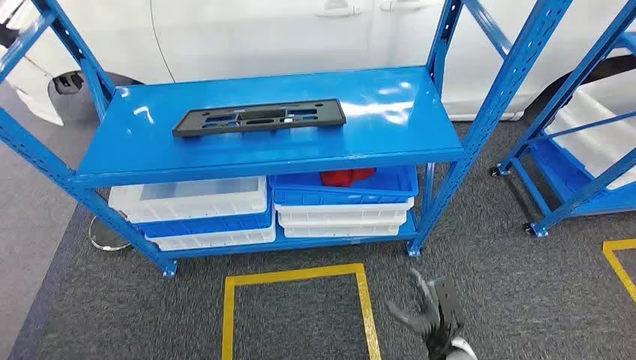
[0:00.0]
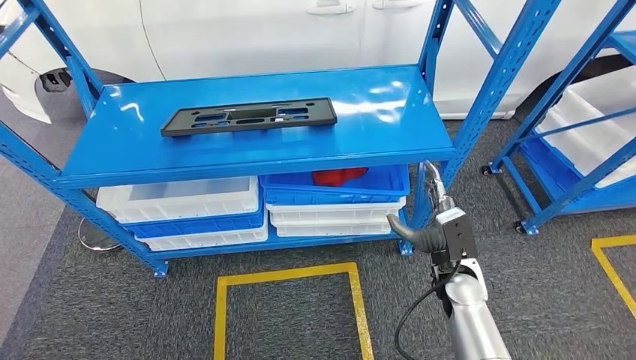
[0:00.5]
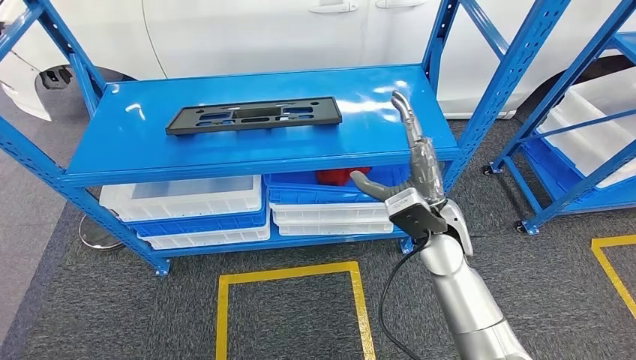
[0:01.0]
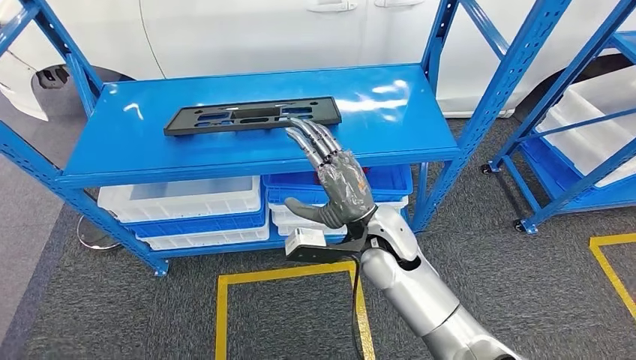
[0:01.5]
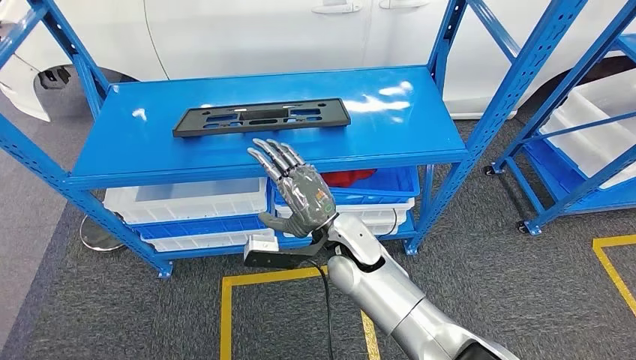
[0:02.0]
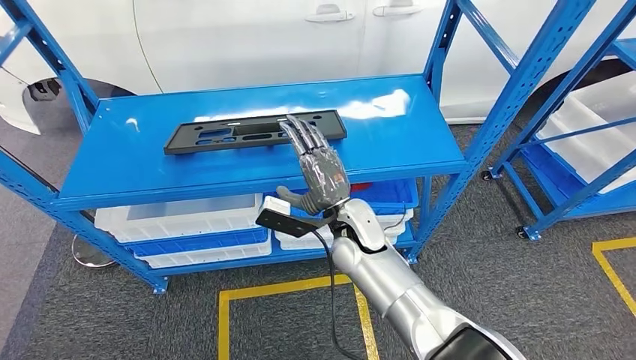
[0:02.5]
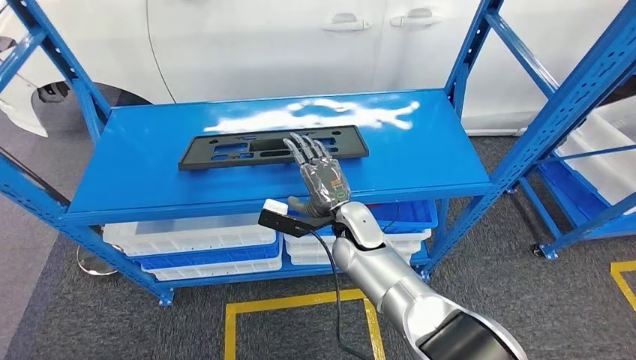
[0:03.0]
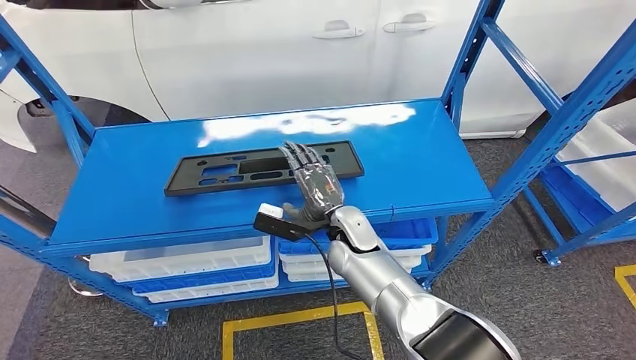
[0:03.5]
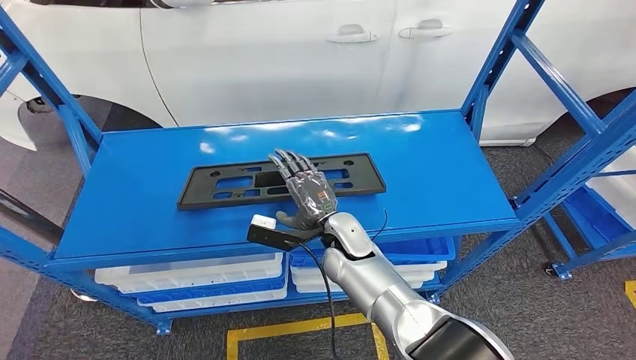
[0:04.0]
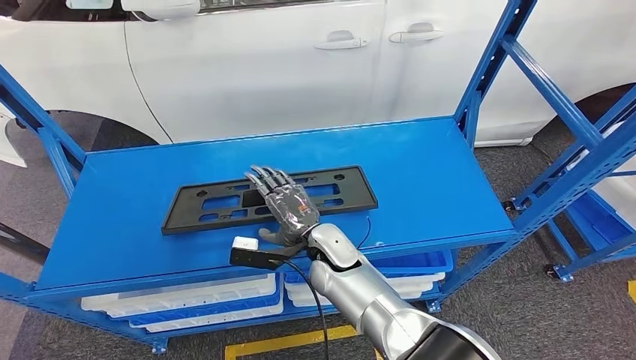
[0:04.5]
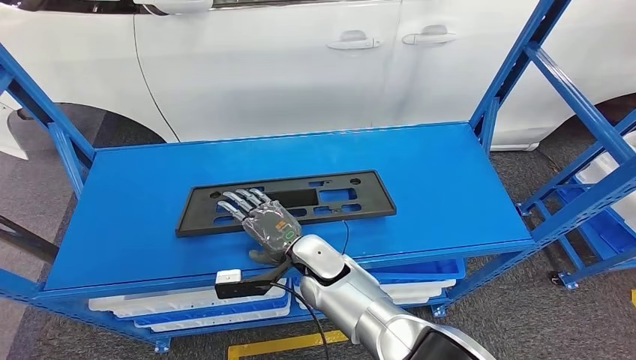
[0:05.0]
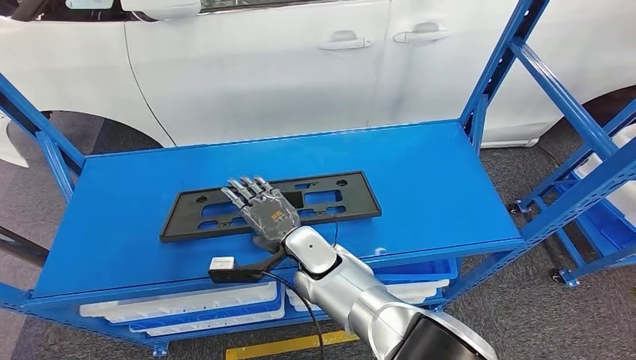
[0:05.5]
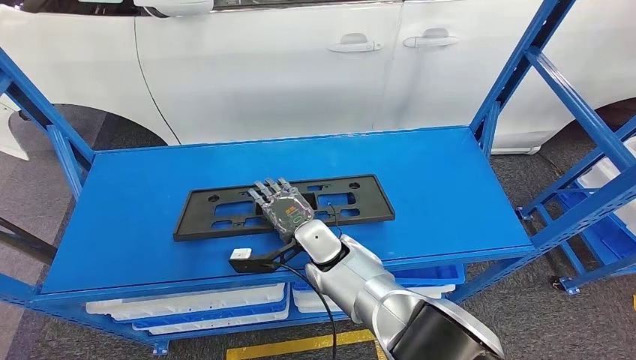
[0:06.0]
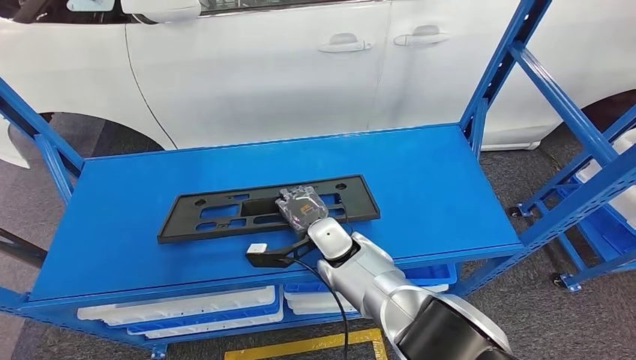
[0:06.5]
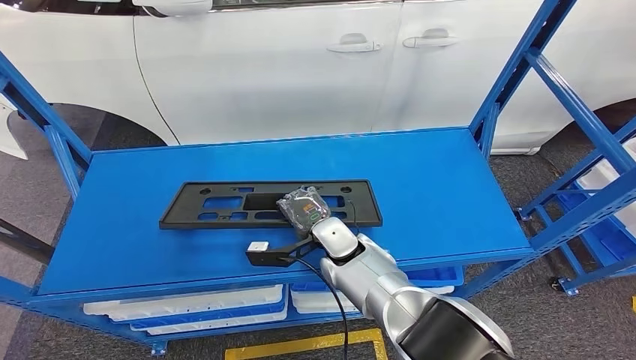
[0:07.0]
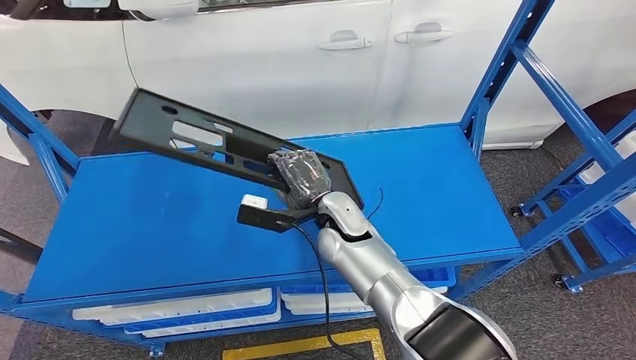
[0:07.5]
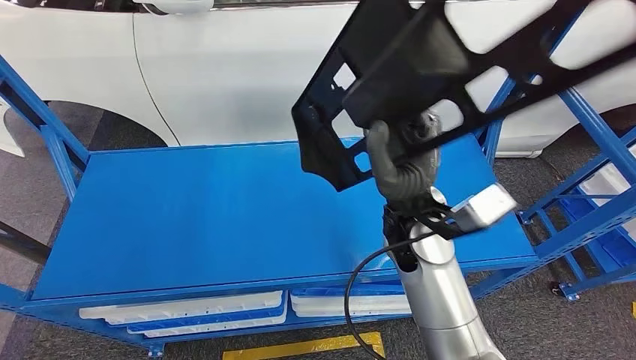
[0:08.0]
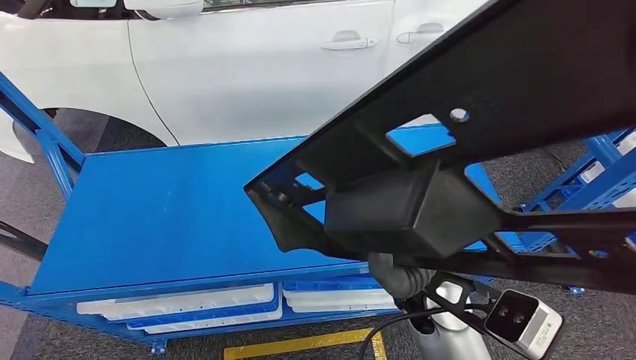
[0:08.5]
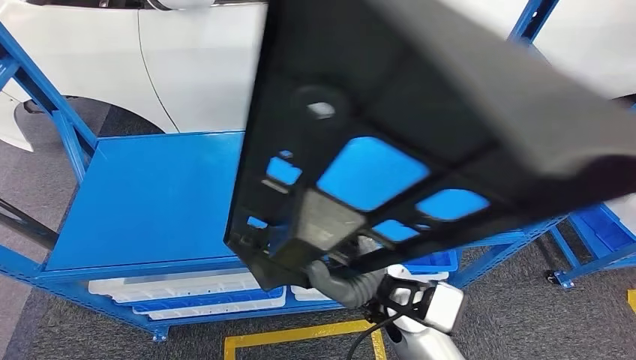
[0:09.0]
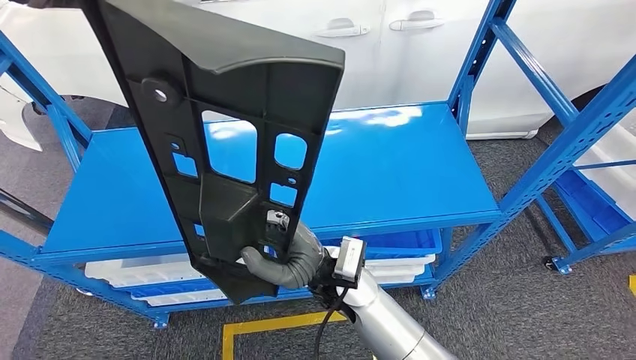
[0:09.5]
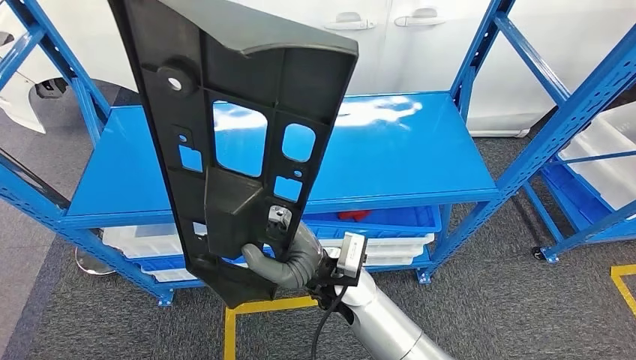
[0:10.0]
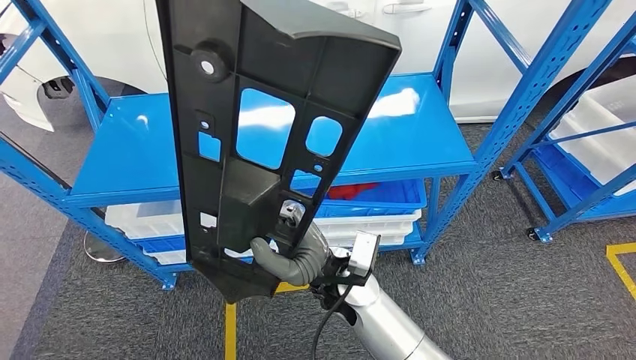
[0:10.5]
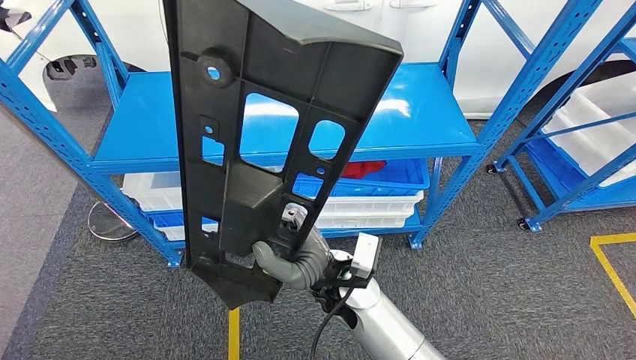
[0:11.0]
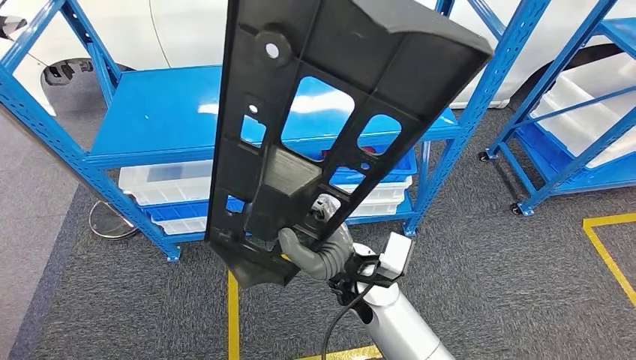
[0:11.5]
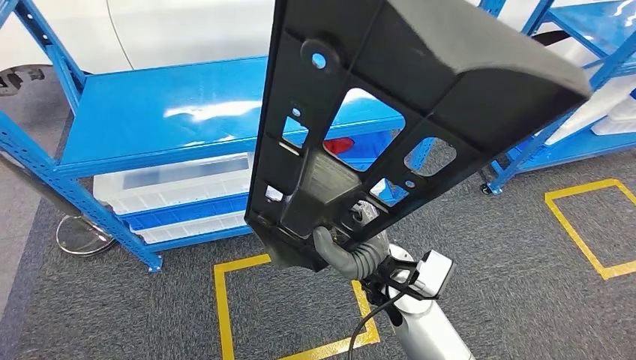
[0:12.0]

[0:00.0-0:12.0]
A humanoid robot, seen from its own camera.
Step, 0:00.0 to 0:09.0: Pick up the small parts from the shelf.

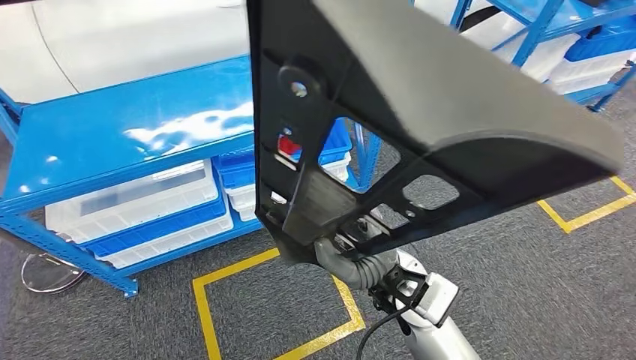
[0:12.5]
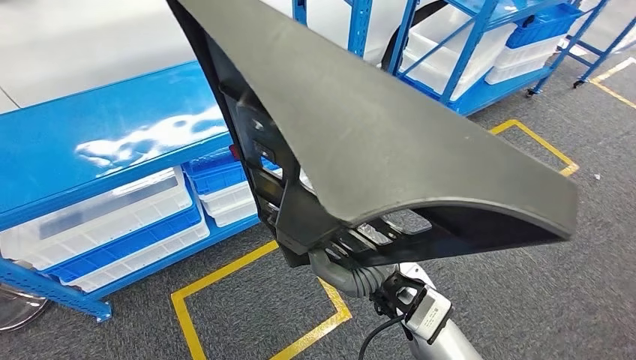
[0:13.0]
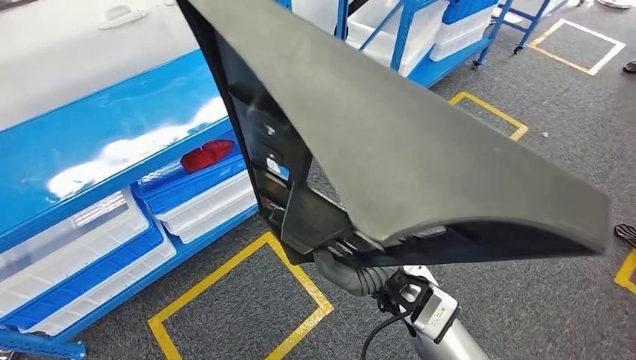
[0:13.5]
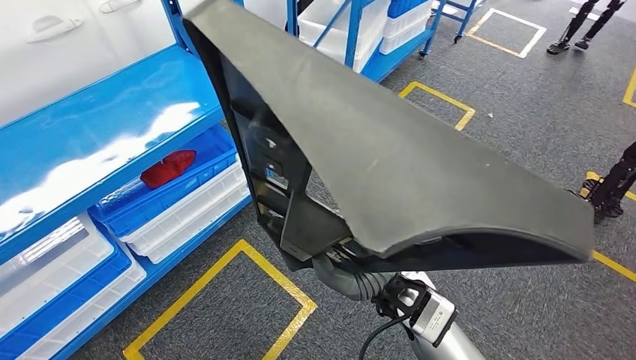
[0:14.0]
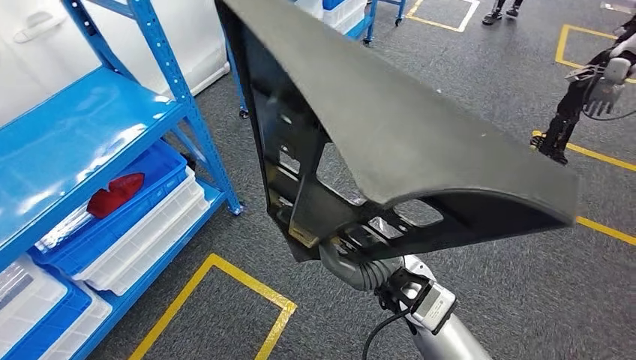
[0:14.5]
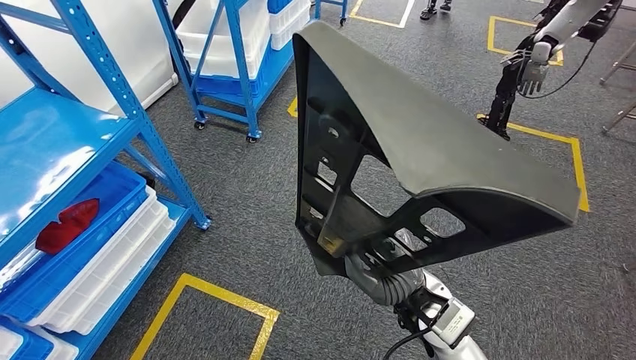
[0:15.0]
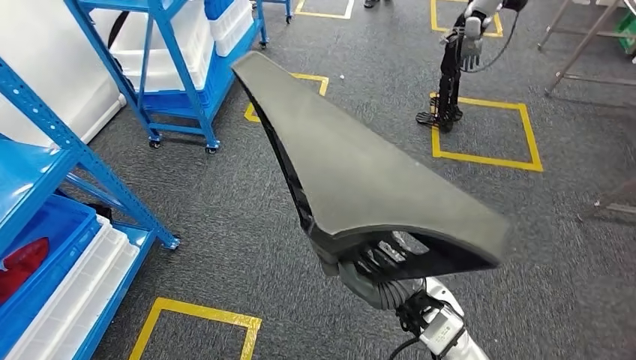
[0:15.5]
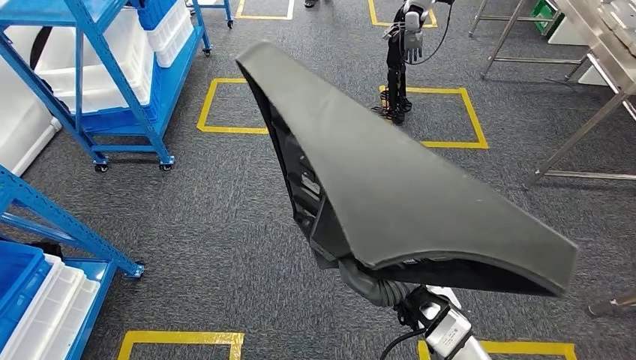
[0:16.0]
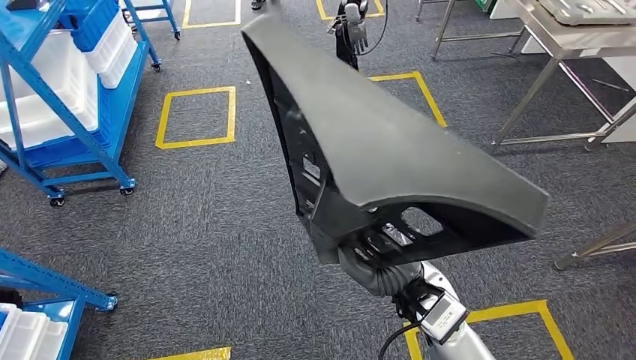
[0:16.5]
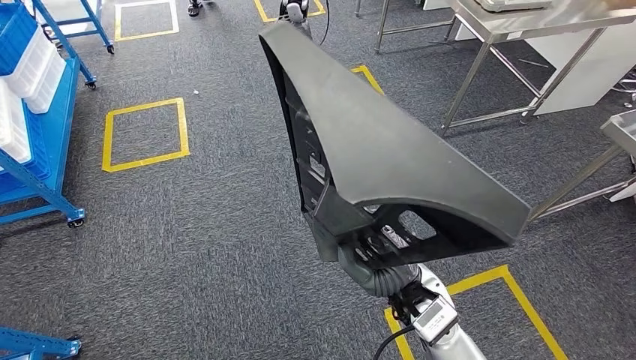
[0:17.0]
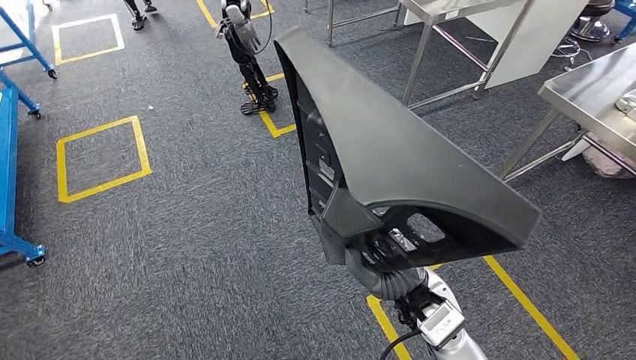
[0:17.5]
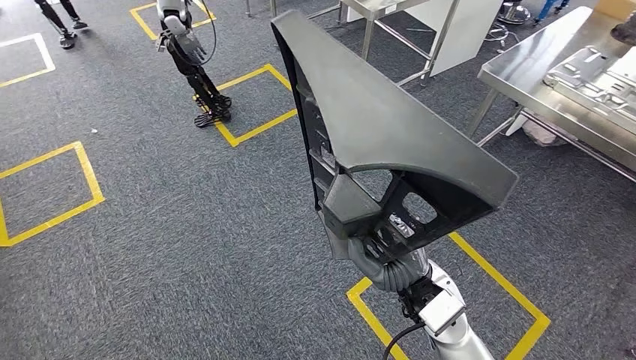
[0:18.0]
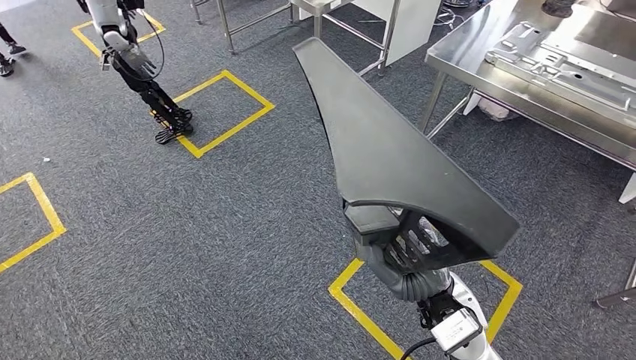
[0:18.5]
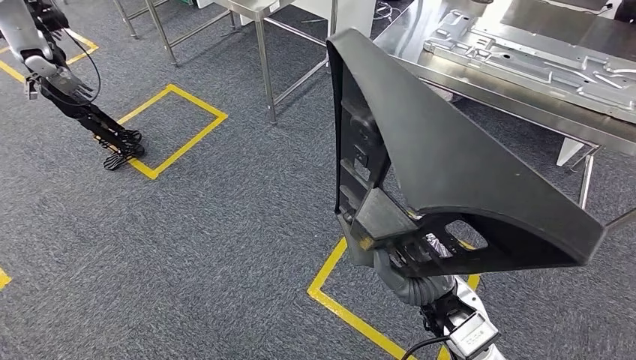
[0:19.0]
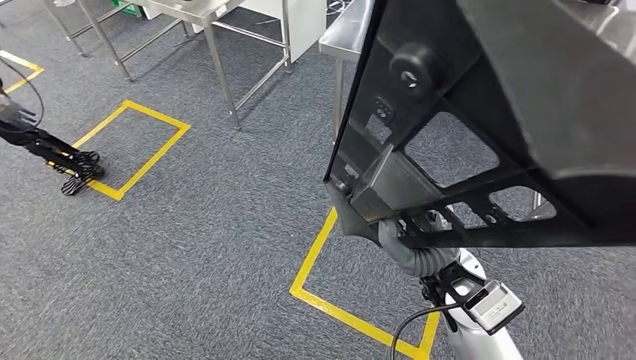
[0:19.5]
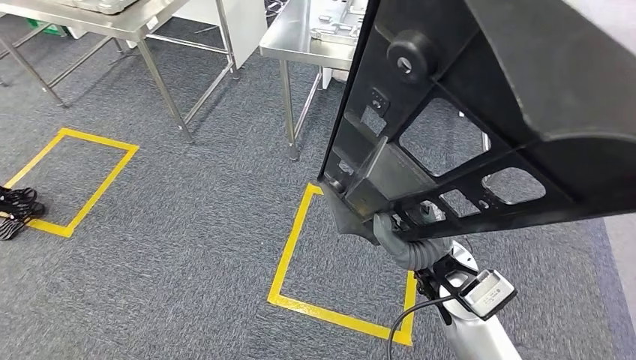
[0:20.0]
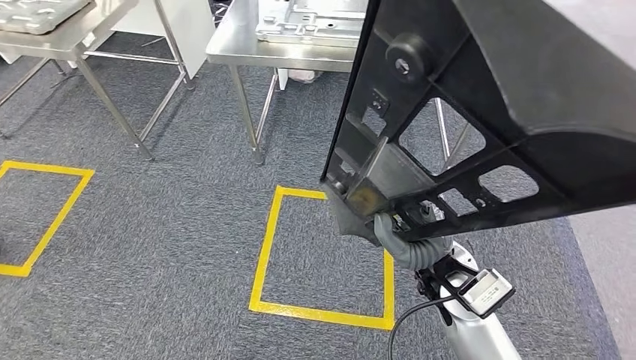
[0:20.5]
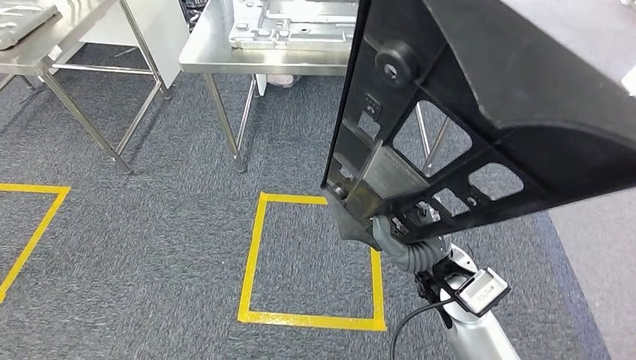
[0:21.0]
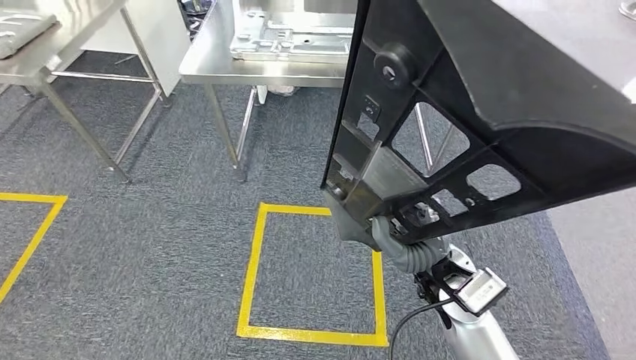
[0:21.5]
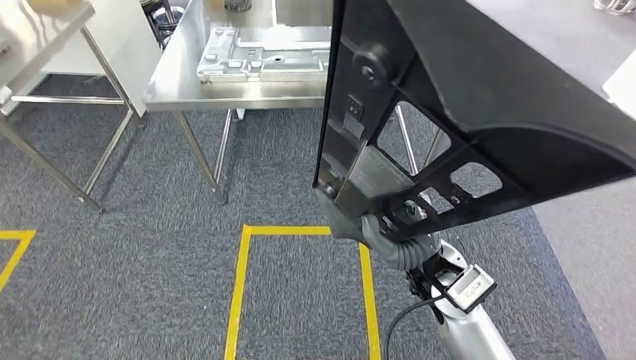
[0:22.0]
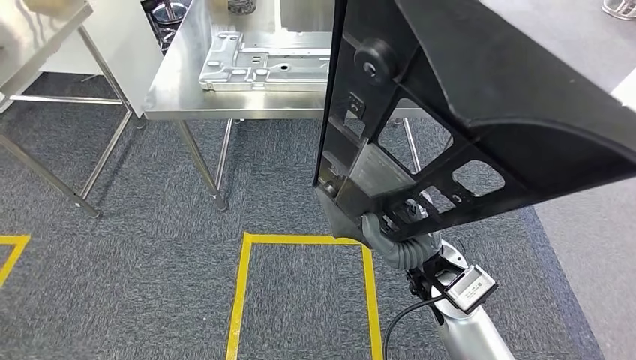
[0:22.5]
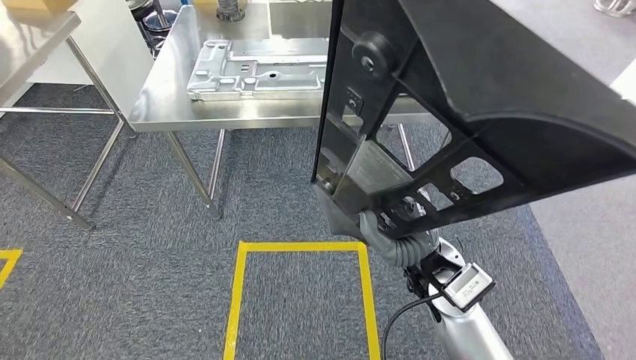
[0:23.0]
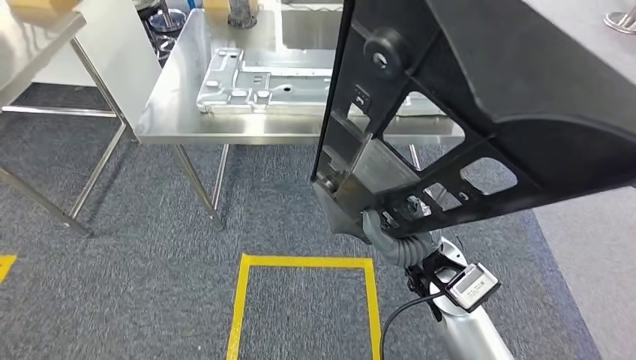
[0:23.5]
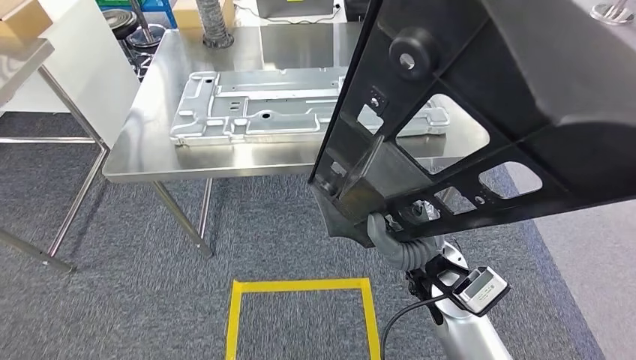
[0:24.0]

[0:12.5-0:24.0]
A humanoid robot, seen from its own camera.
Step, 0:12.5 to 0:22.0: Move the small parts to the workbench.
